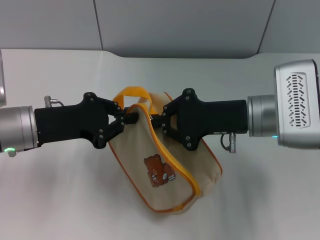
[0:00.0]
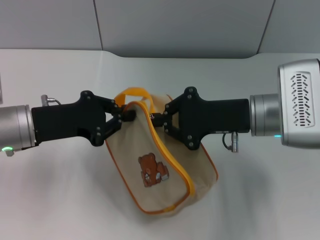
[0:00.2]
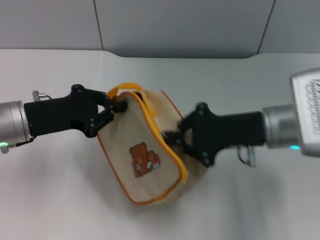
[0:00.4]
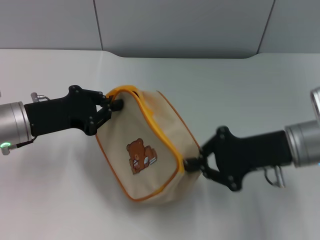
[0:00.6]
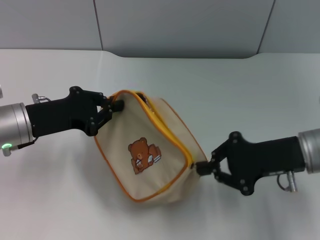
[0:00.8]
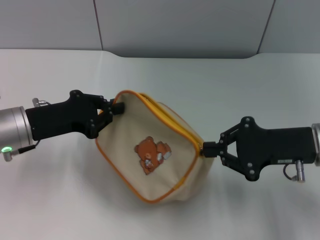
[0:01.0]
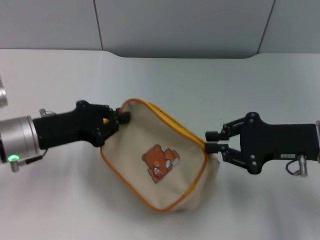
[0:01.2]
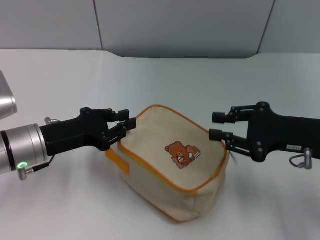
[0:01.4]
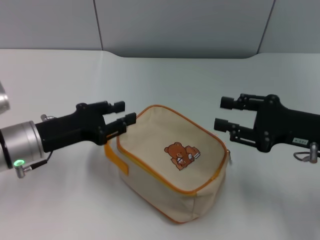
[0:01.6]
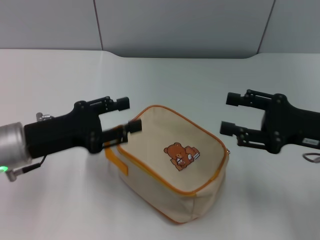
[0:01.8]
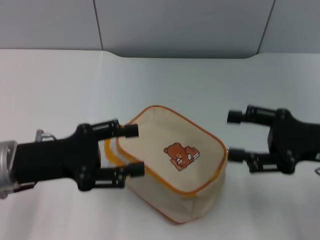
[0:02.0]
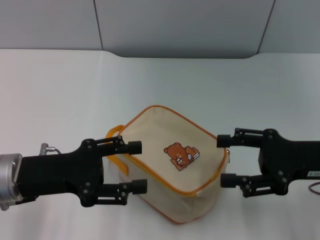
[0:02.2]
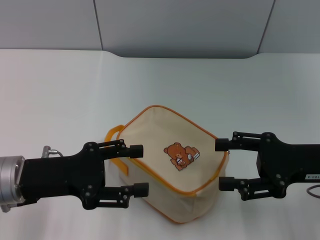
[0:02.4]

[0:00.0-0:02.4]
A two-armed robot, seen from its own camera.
0:00.0 to 0:01.2: The right gripper moves to the right, about 10 cm.
0:01.2 to 0:02.4: The right gripper opens. The left gripper shifts some 5 cm backward, and opens.

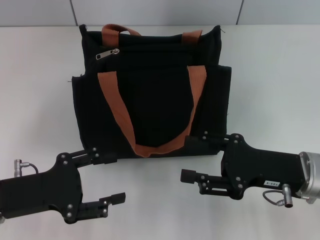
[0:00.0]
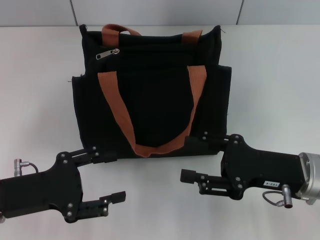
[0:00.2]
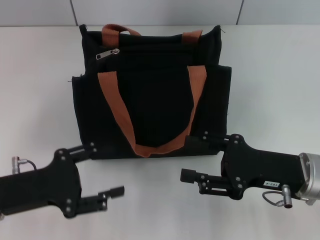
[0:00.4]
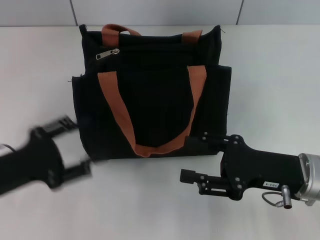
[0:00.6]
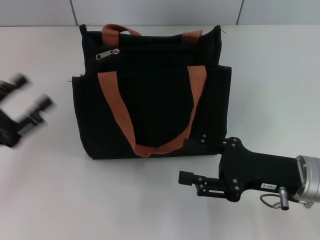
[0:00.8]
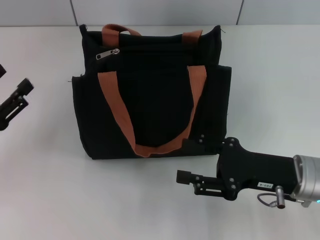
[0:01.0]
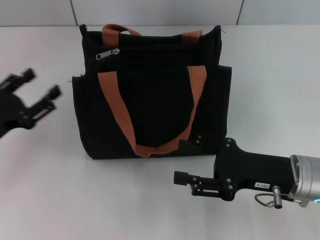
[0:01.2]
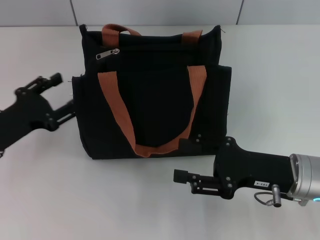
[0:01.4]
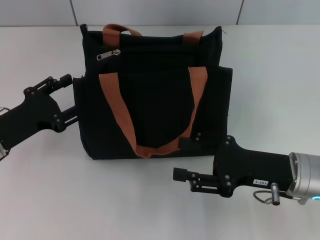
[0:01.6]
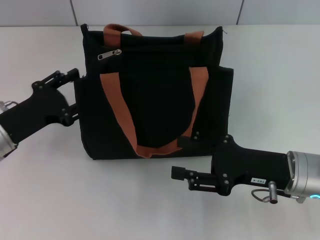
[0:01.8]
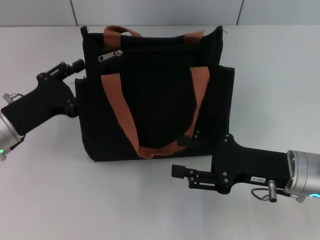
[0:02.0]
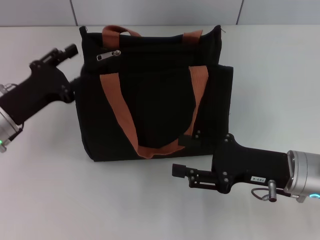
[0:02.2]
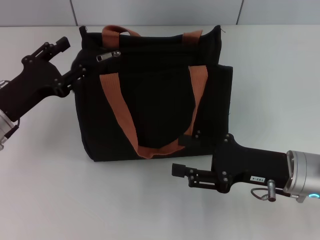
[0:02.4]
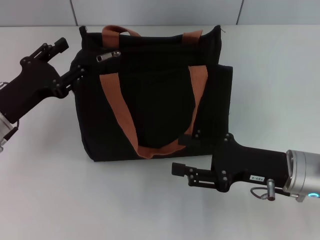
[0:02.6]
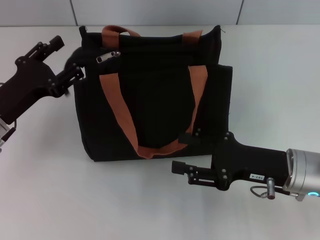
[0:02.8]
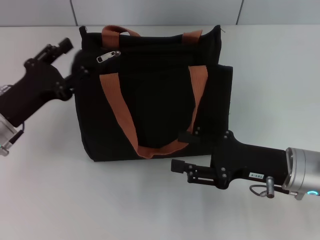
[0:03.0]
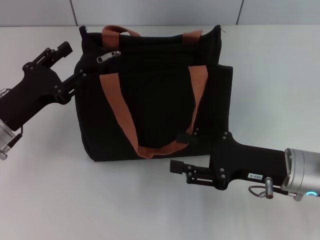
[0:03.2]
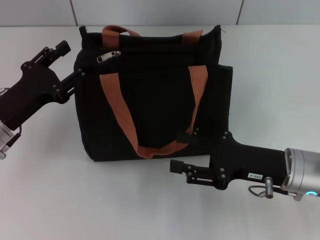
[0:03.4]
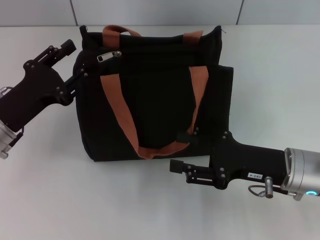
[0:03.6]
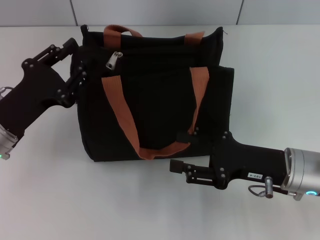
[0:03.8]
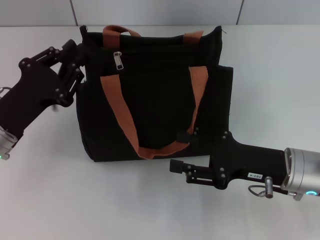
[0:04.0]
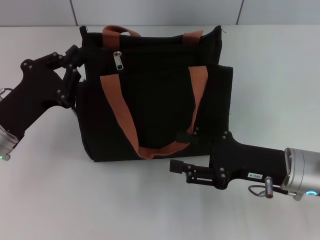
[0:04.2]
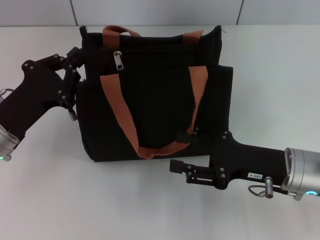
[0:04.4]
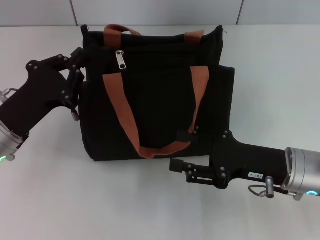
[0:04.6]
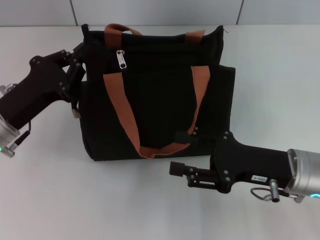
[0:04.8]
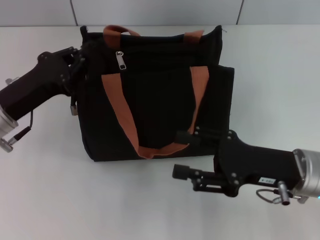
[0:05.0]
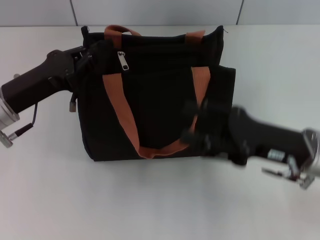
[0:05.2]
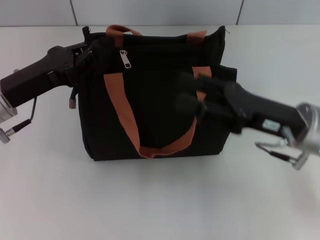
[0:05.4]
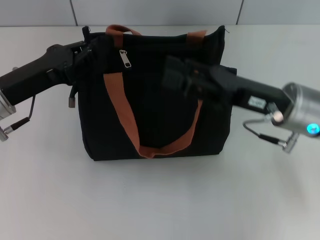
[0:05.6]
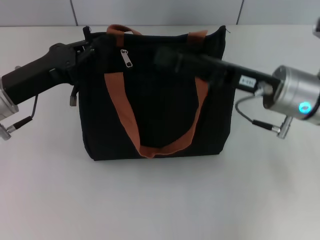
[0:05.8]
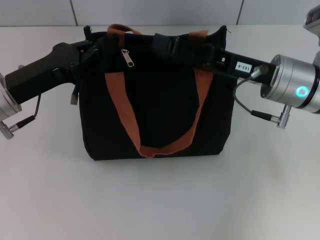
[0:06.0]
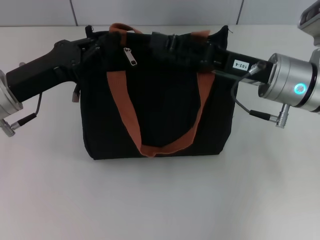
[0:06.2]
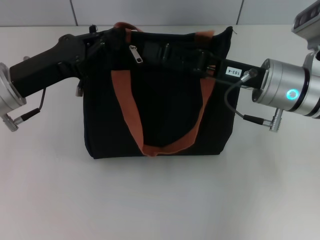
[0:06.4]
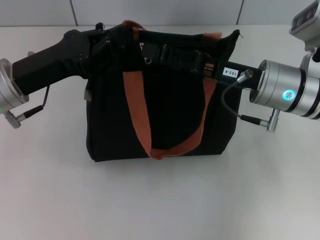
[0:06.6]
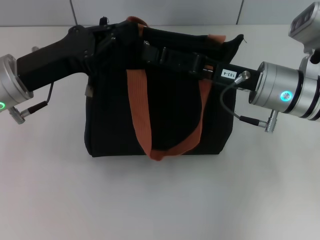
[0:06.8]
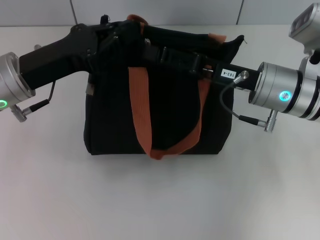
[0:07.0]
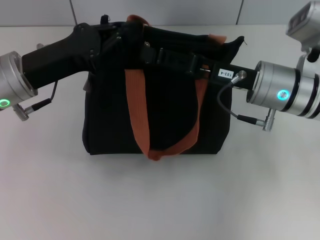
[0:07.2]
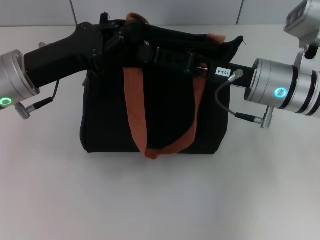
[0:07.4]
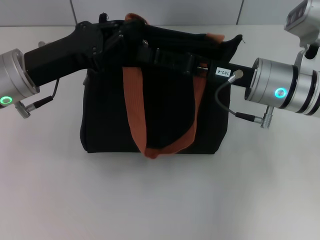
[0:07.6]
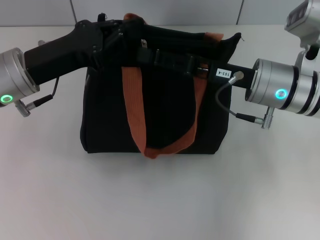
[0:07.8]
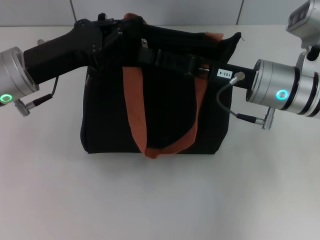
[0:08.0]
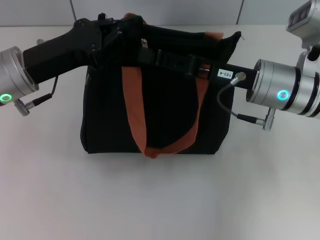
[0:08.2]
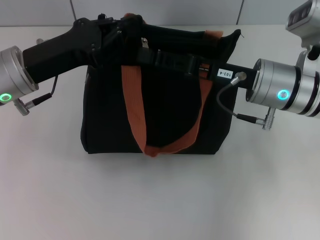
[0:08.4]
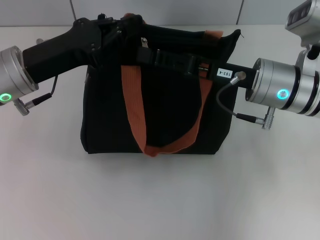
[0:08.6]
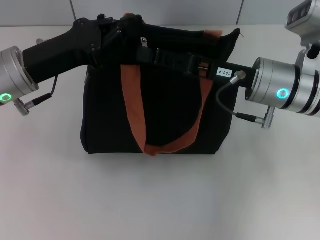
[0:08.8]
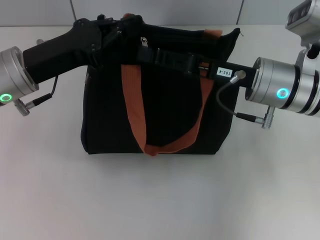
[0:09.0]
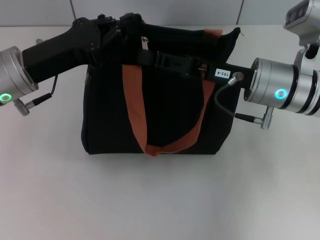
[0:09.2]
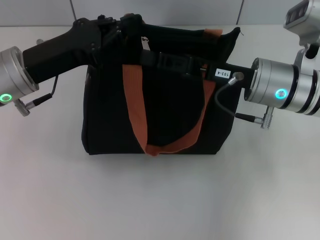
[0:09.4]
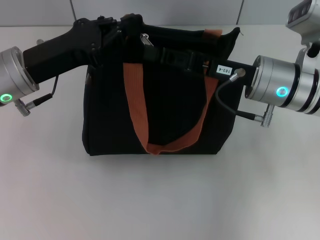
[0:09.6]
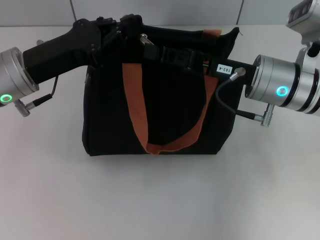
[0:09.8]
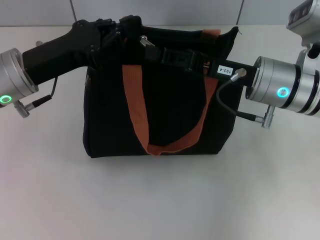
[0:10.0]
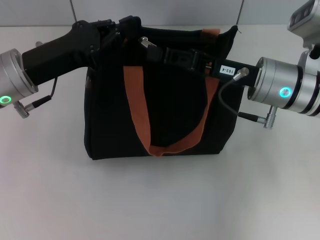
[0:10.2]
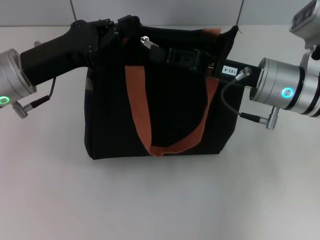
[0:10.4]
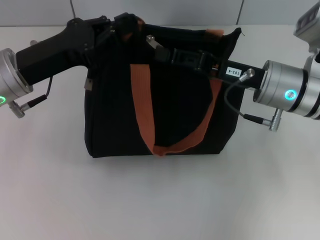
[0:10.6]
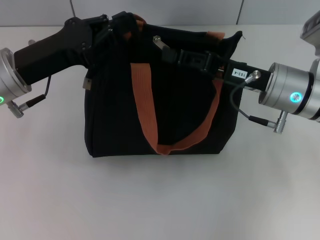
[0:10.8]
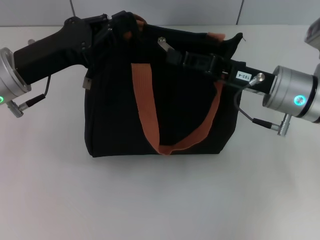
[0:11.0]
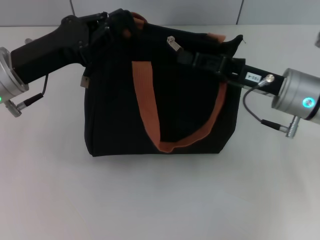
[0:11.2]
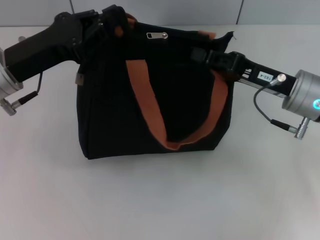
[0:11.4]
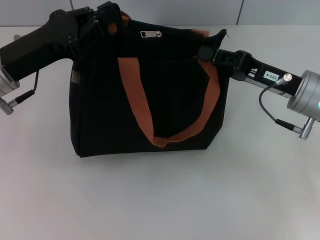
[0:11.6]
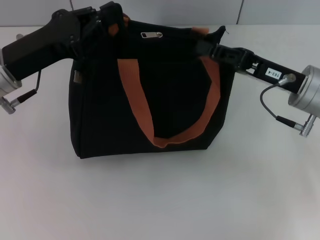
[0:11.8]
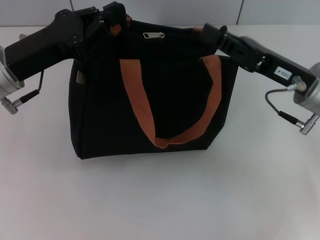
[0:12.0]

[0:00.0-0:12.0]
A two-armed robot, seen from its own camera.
0:00.0 to 0:01.6: The left gripper shifts approximately 5 cm forward.
0:01.6 to 0:03.0: The grippers make only small movements.
0:03.0 to 0:04.4: The left gripper closes.
0:04.4 to 0:06.0: The right gripper goes about 10 cm forward and upward; the left gripper ends up some 5 cm from where it was.
0:06.0 to 0:07.6: There are only small adjustments of the grippers.
0:07.6 to 0:09.0: The two grippers keep their place.
0:09.0 to 0:10.4: The right gripper closes its fingers.
0:10.4 to 0:12.0: The right gripper changes place by about 5 cm.

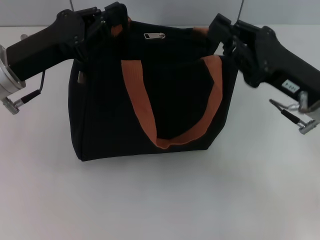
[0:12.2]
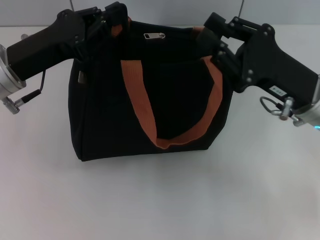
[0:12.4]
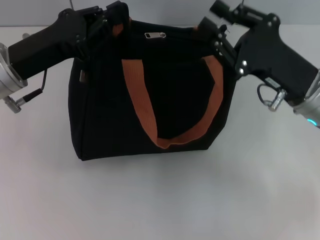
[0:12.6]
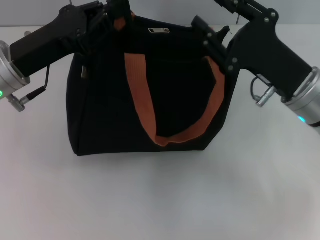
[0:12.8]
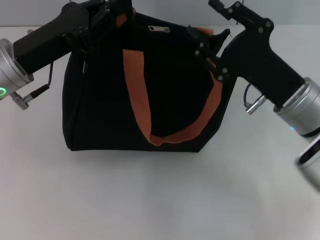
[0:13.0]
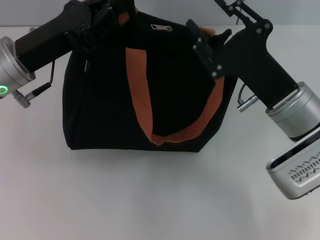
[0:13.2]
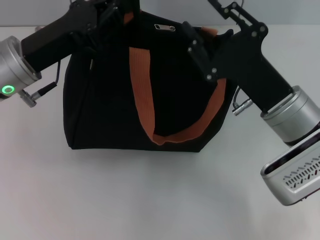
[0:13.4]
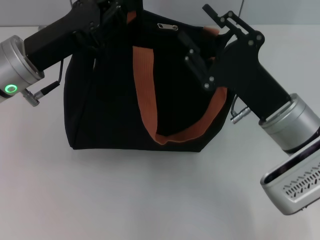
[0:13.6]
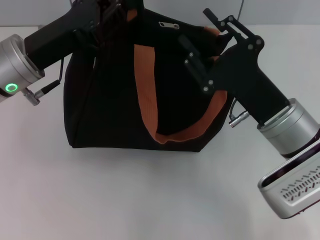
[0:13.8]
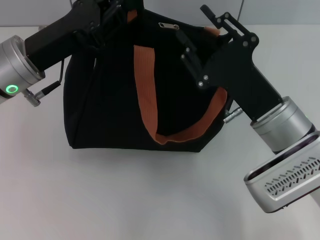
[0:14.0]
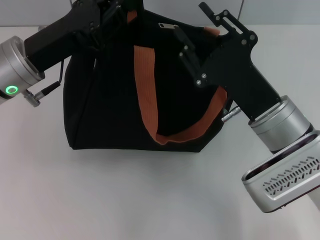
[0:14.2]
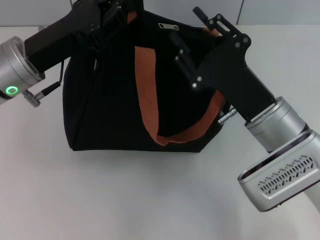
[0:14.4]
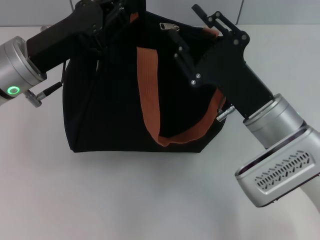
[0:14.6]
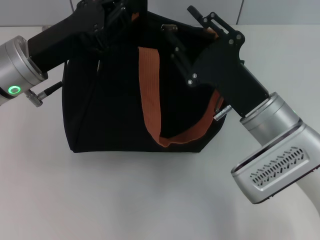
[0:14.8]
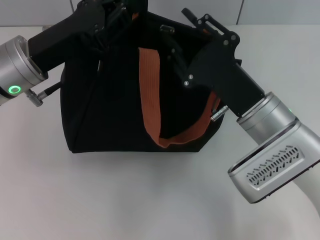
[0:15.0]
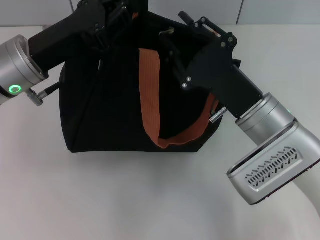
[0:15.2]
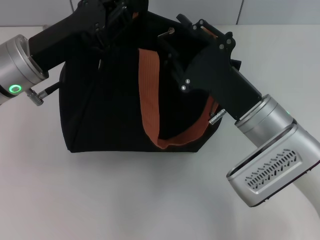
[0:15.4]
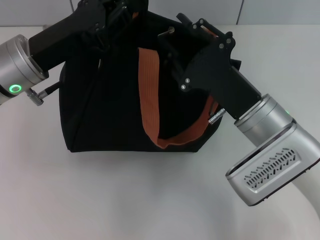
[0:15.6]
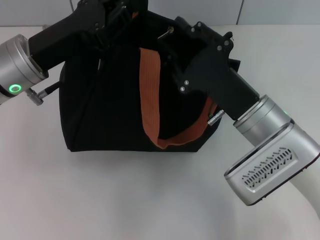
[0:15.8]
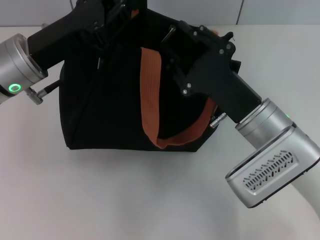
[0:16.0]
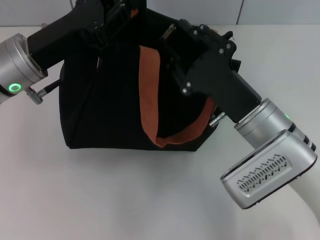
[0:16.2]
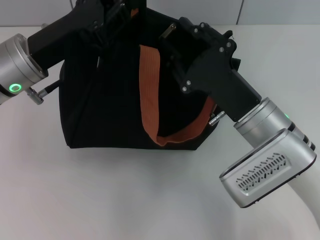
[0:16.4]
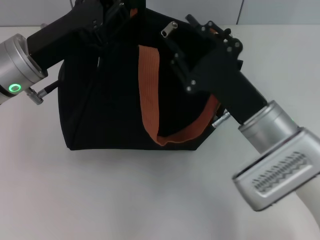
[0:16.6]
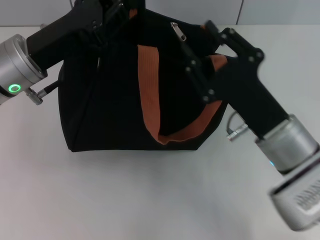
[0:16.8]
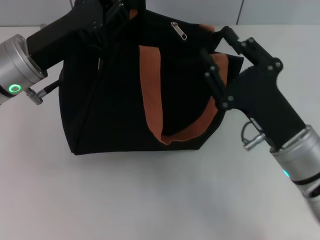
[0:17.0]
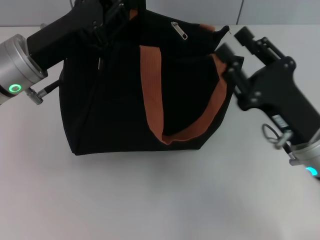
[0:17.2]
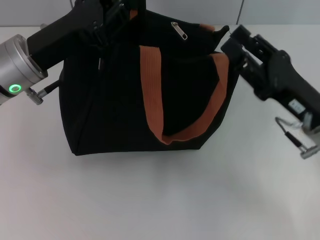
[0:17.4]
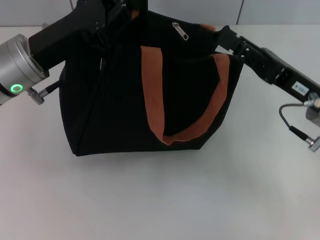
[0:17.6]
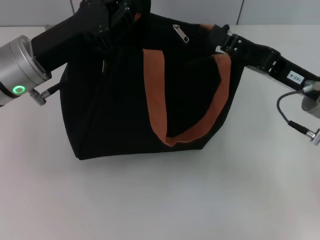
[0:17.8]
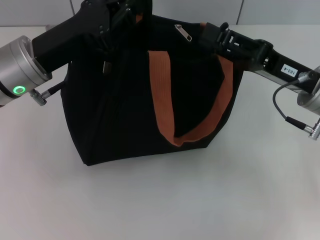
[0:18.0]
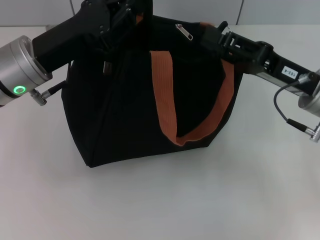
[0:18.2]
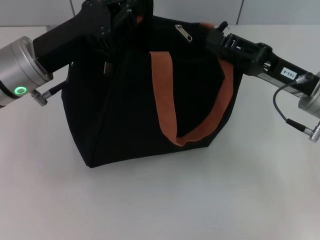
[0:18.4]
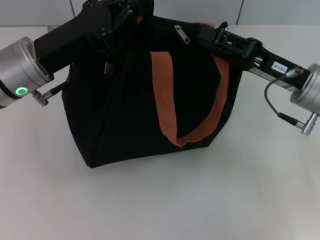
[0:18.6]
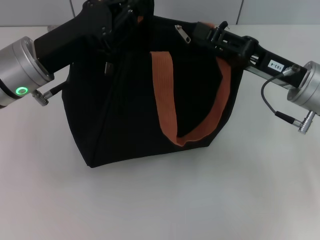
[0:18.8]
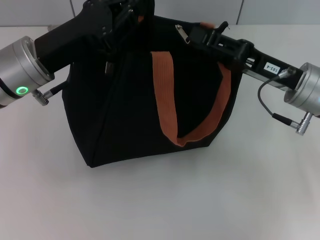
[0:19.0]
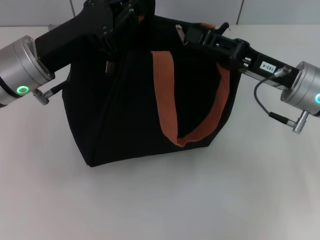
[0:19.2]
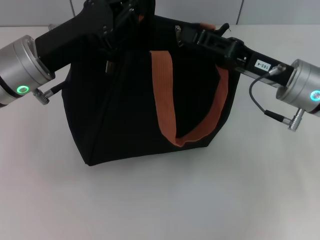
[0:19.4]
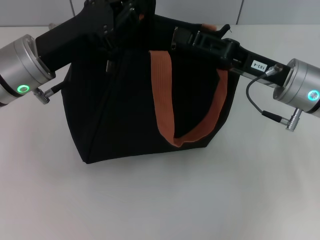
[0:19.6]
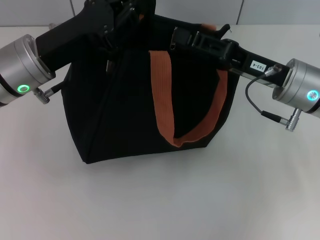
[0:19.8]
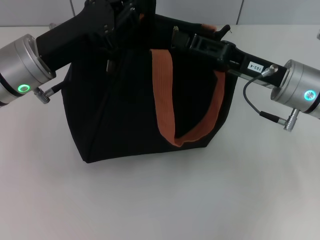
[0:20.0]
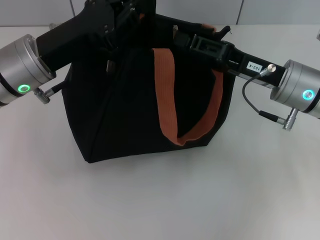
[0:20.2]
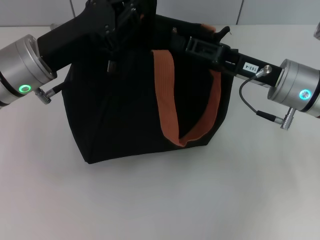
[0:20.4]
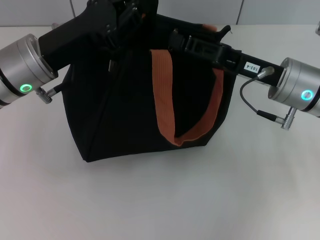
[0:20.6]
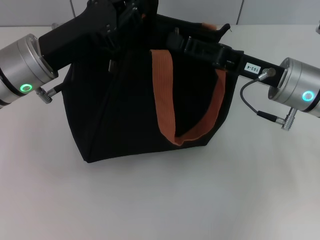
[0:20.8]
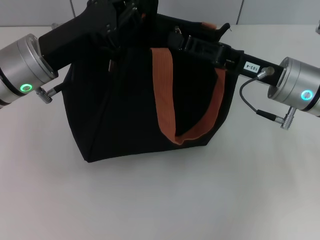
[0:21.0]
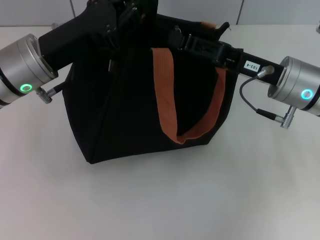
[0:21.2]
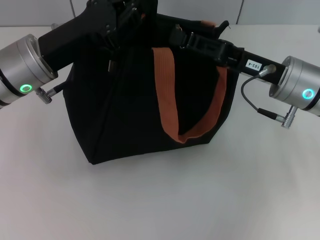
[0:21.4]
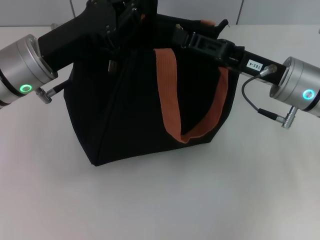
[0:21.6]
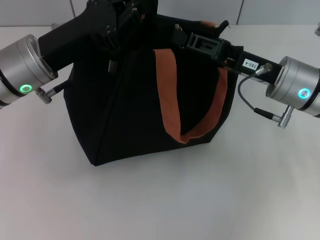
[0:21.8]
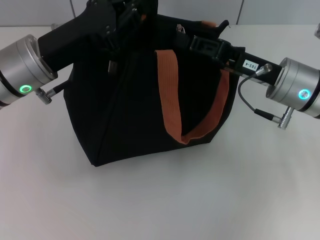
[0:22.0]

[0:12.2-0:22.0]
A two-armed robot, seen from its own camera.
0:12.2 to 0:13.6: The right gripper heads to the left, covering approximately 5 cm, and opens.
0:13.6 to 0:15.0: The grippers make only small movements.
0:15.0 to 0:16.4: The two grippers keep their place.
0:16.4 to 0:17.8: The right gripper heads to the right, covering roughly 10 cm.
0:17.8 to 0:20.6: The grippers make only small movements.
0:20.6 to 0:22.0: The right gripper closes its fingers.
